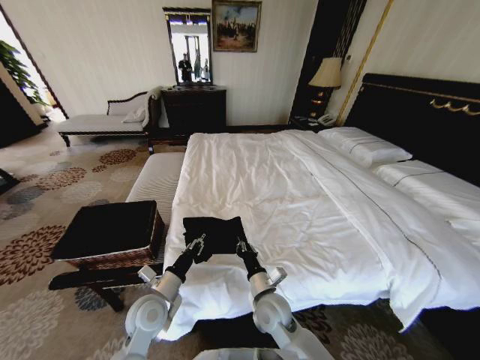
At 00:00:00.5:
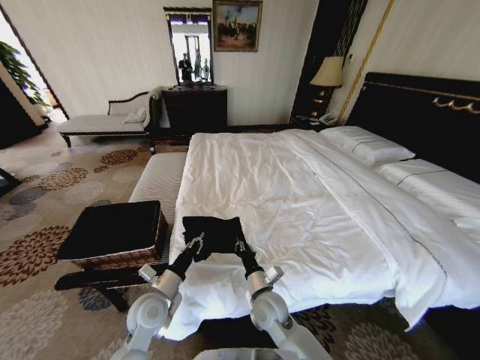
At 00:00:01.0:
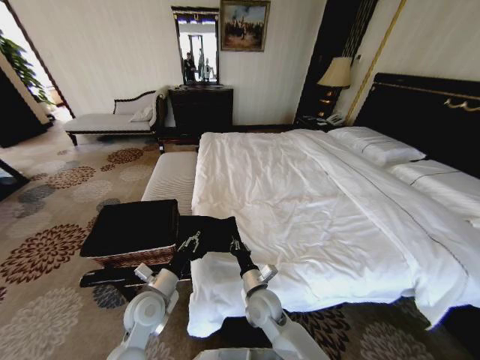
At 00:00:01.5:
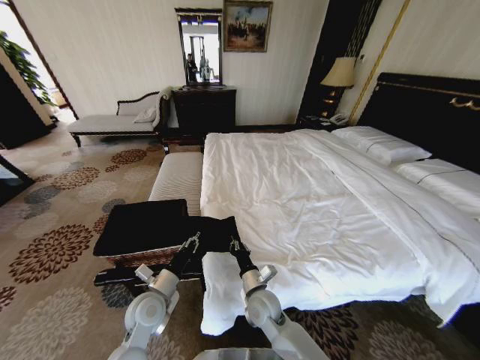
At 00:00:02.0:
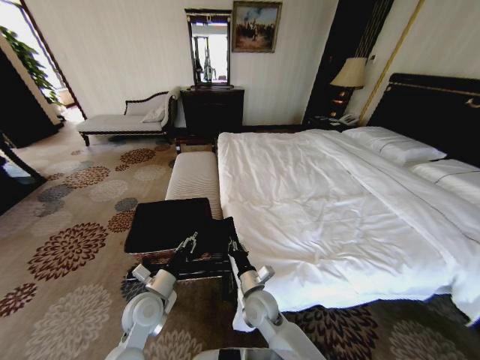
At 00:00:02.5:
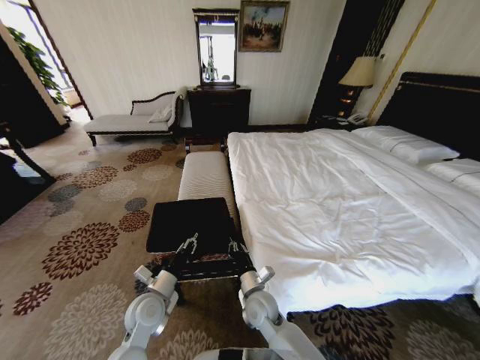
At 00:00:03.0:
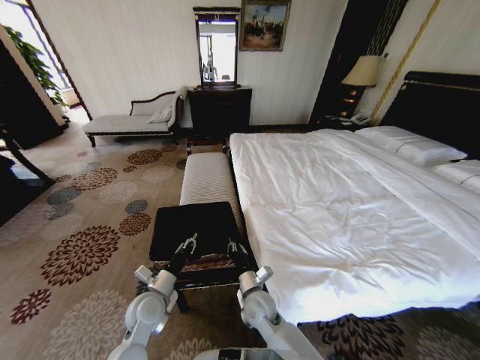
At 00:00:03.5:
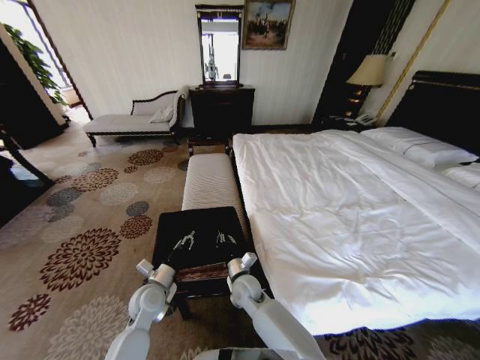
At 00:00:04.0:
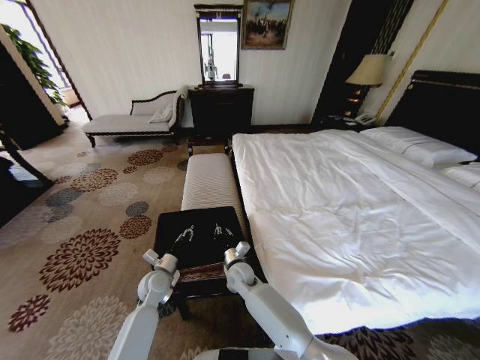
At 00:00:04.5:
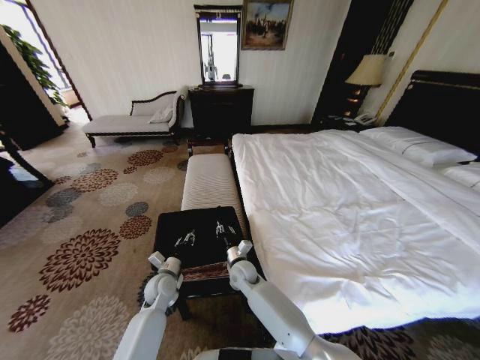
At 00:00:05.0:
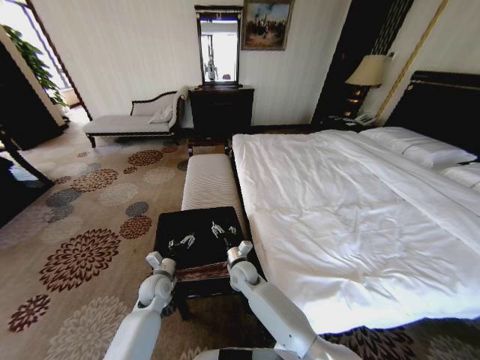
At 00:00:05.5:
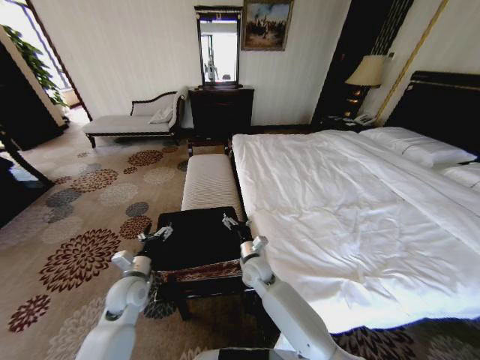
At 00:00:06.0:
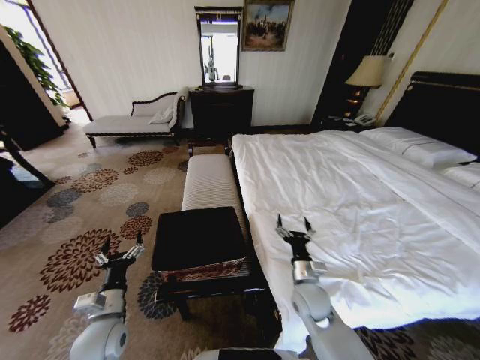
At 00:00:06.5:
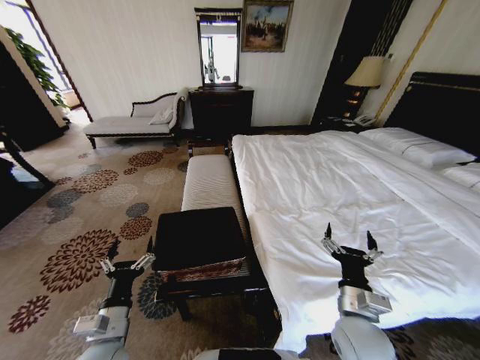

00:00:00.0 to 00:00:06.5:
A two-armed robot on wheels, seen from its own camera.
Task of the whole recording: Fold the clothes on the bed and place them into the basket.
00:00:02.0 to 00:00:04.5: The left gripper shifts roughly 10 cm forward and downward. The right gripper travels forward by some 10 cm.
00:00:04.5 to 00:00:06.5: The right gripper travels to the right, backward and upward by some 35 cm, and opens up. The left gripper is displaced backward and upward by roughly 20 cm, and opens.
